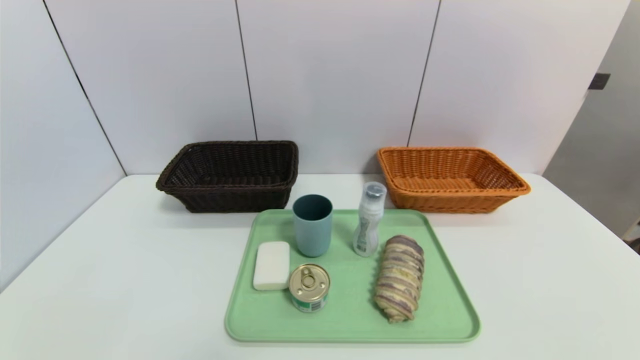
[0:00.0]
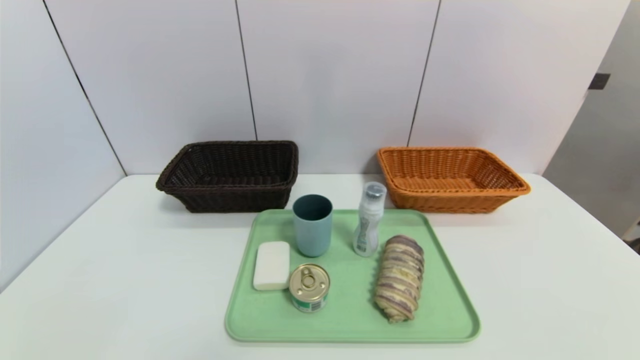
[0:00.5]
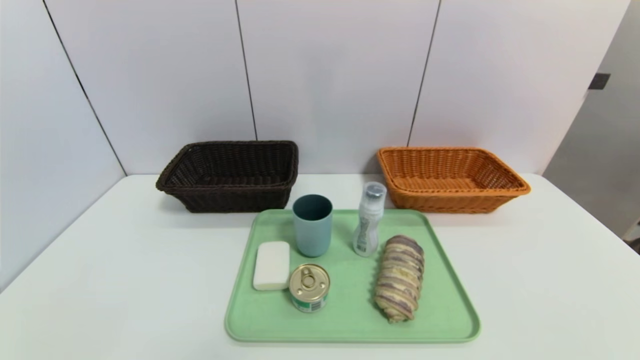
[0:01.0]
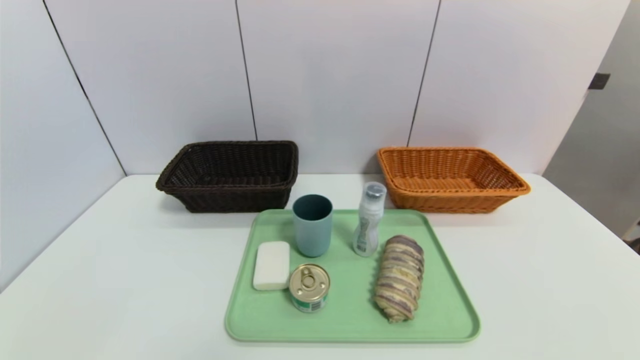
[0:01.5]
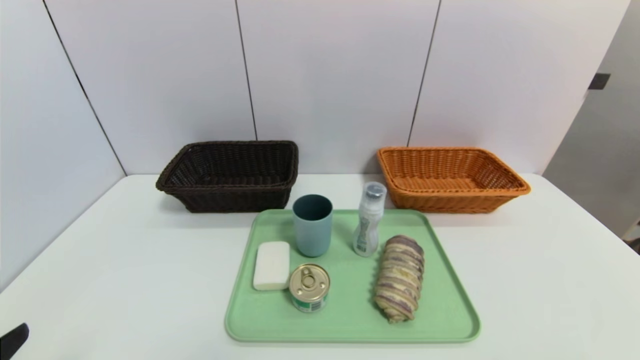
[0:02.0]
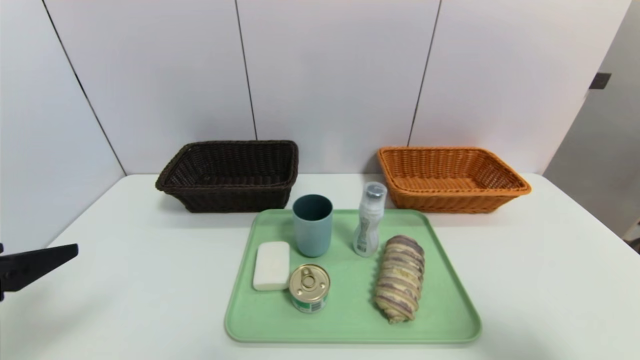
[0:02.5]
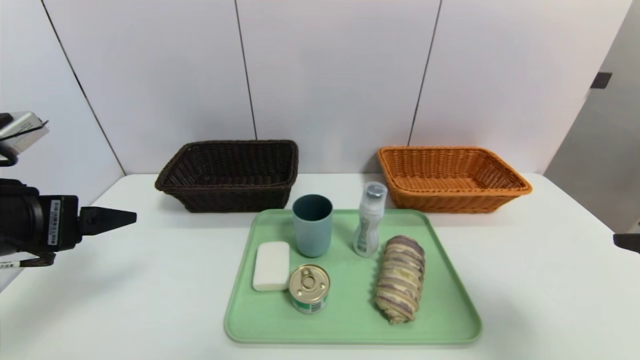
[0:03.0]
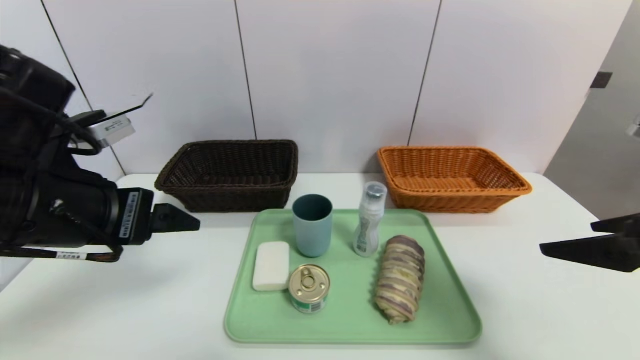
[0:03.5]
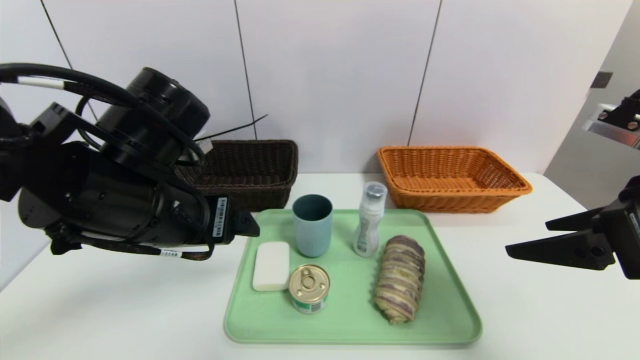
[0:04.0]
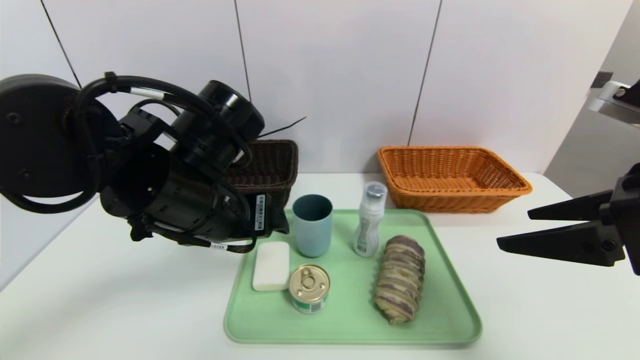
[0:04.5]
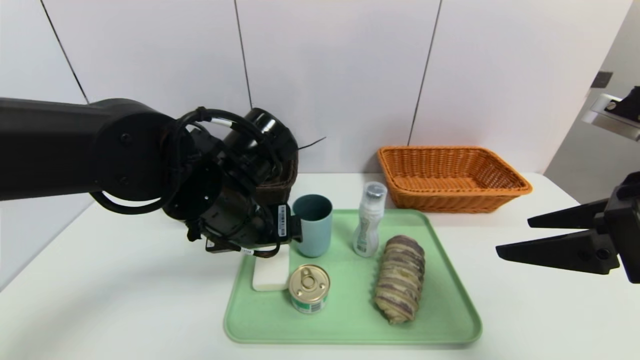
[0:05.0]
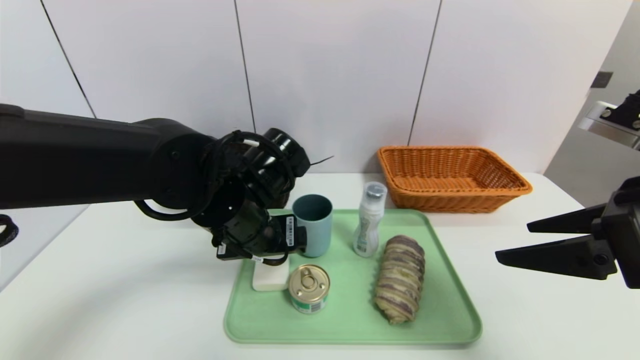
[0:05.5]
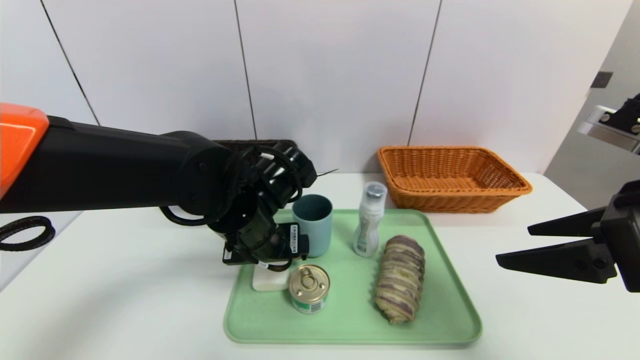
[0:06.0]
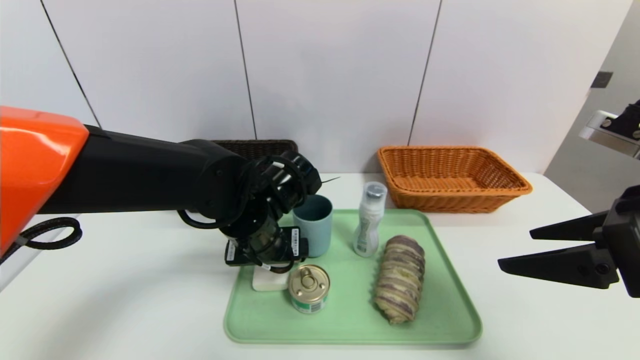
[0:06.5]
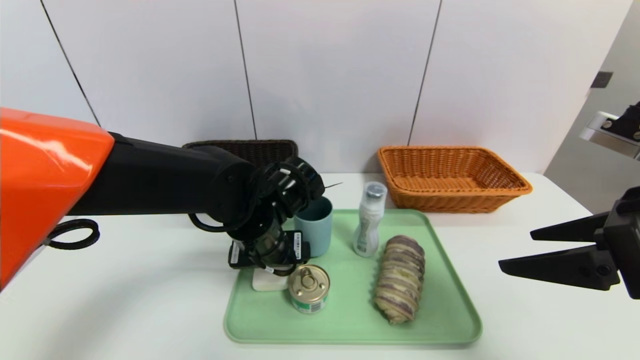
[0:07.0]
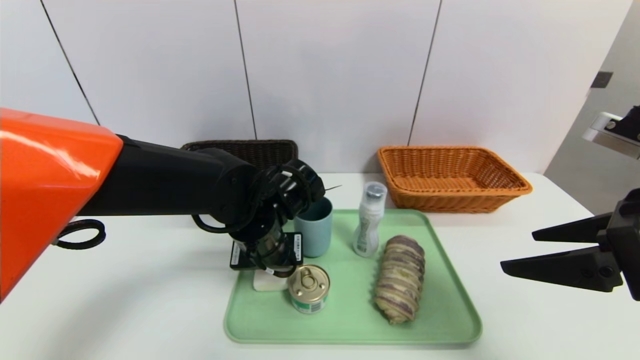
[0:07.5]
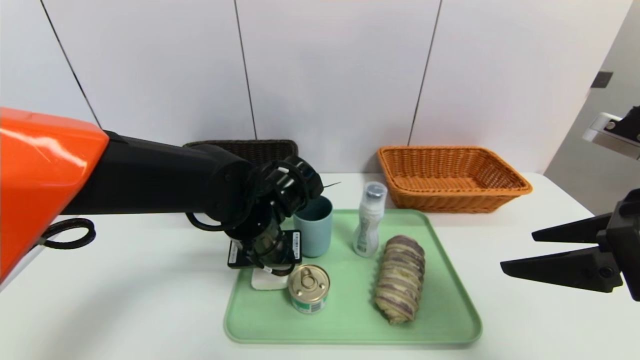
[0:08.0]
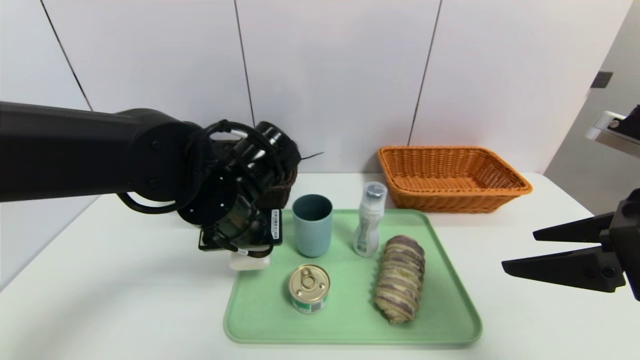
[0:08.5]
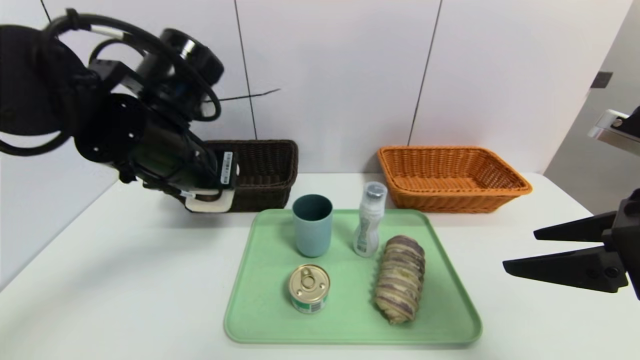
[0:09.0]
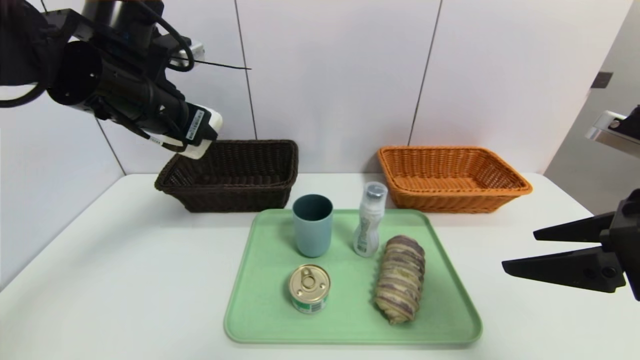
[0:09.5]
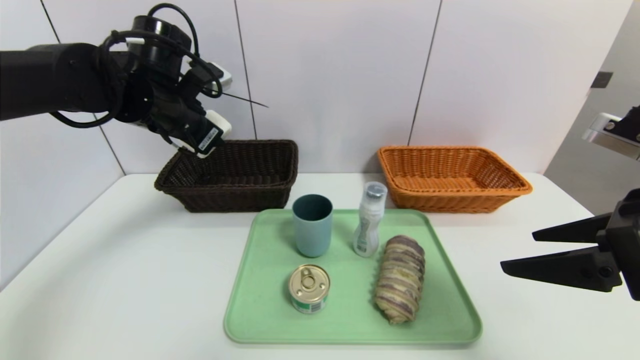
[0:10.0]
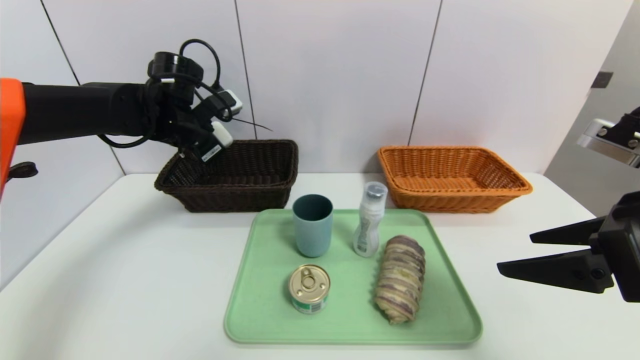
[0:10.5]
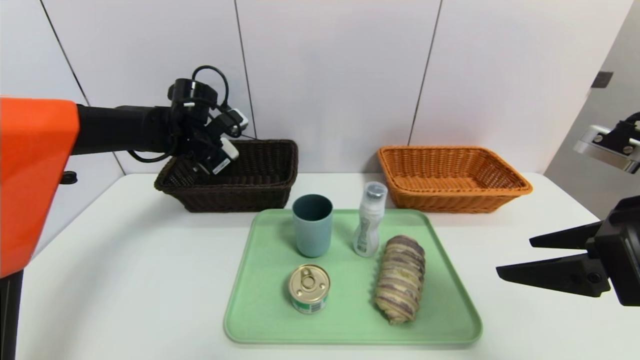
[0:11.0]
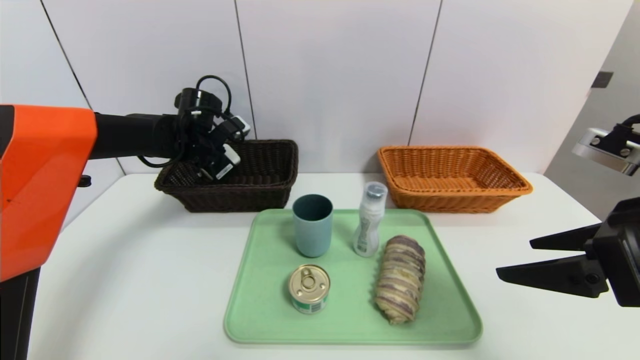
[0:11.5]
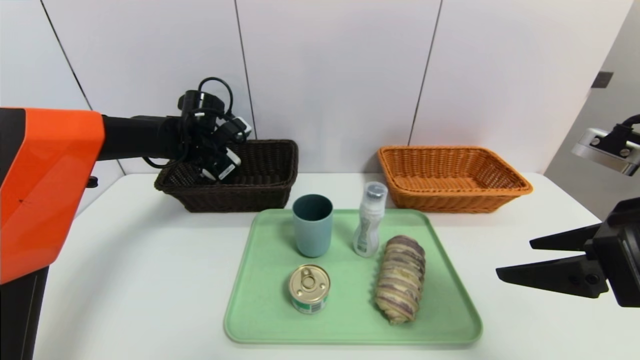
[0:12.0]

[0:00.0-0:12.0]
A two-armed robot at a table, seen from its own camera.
Task of the whole recording: place the food in the right basket with the right gripper, and place the non food items in the left basket with the left gripper.
0:02.0 to 0:04.0: The left gripper goes roughly 25 cm forward and to the right. Meanwhile the right gripper goes about 15 cm forward and upward.
0:04.0 to 0:06.0: The left gripper travels downward, to the right and forward by approximately 10 cm.
0:06.0 to 0:08.0: The left gripper closes.
0:08.0 to 0:10.0: The left gripper goes about 20 cm to the left, upward and forward.
0:10.0 to 0:12.0: The left gripper shifts approximately 15 cm downward and forward.

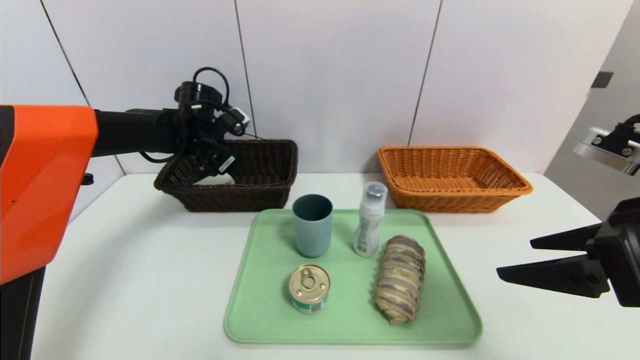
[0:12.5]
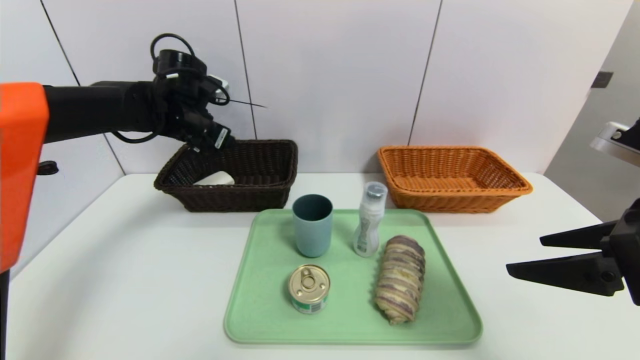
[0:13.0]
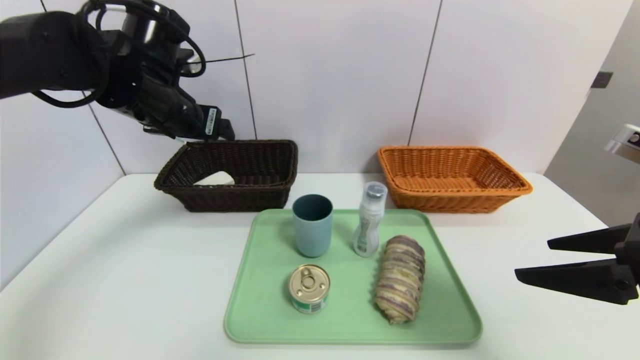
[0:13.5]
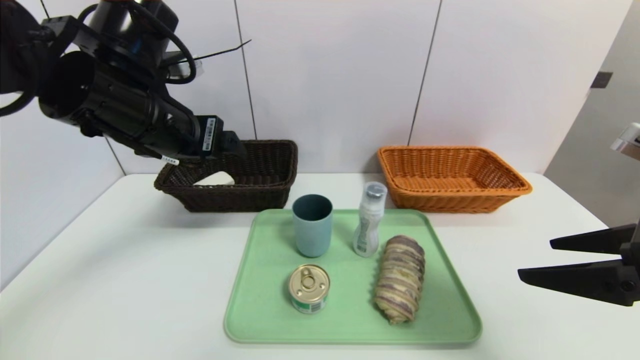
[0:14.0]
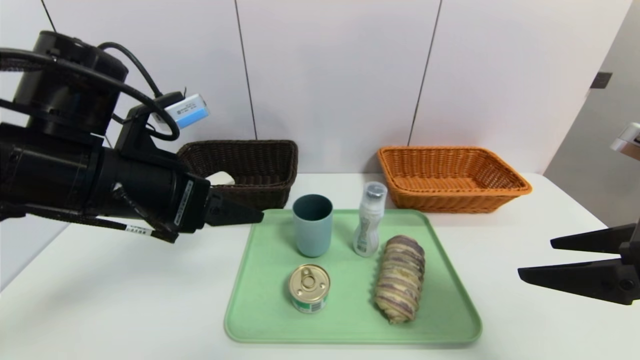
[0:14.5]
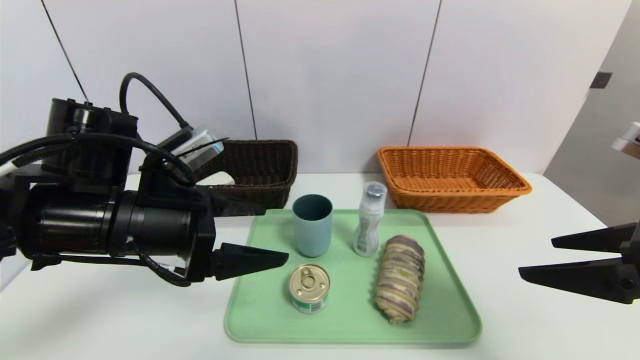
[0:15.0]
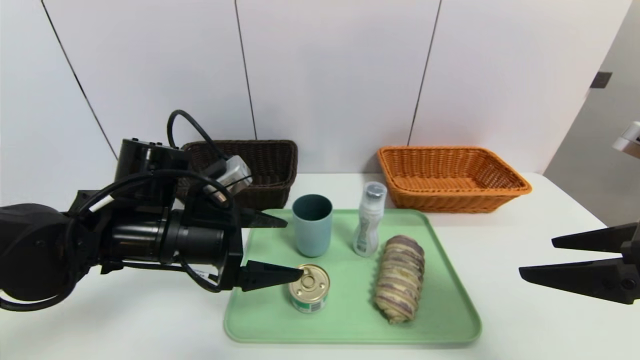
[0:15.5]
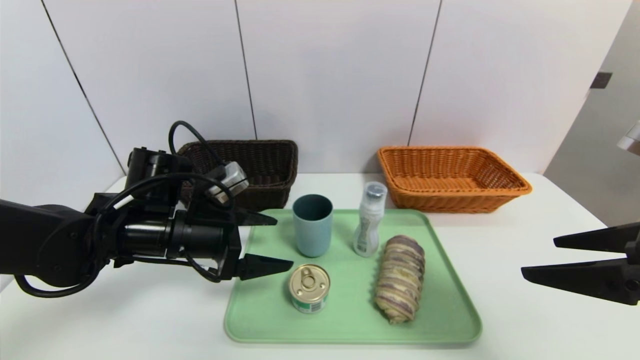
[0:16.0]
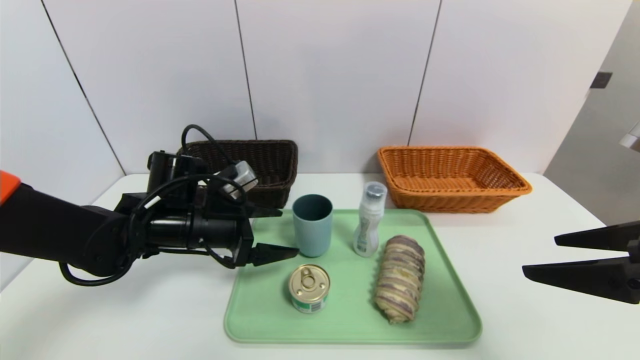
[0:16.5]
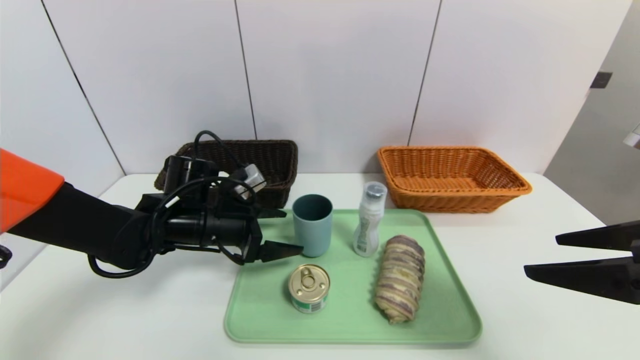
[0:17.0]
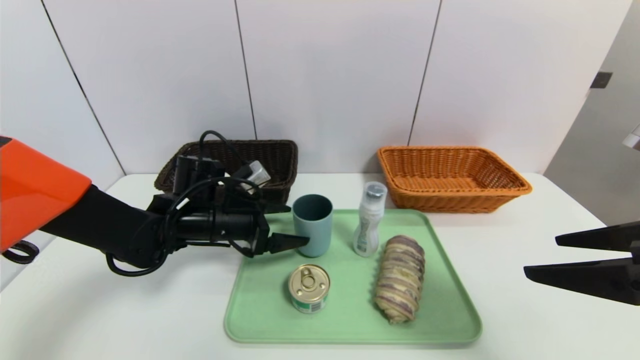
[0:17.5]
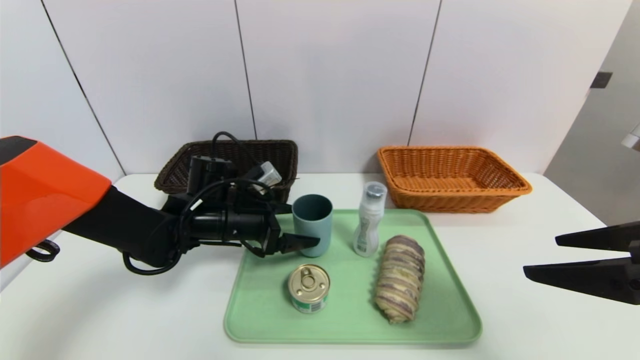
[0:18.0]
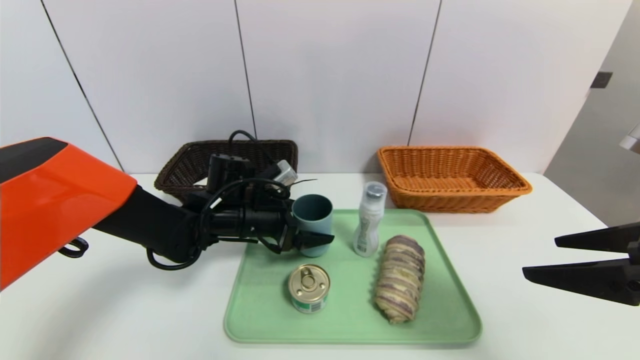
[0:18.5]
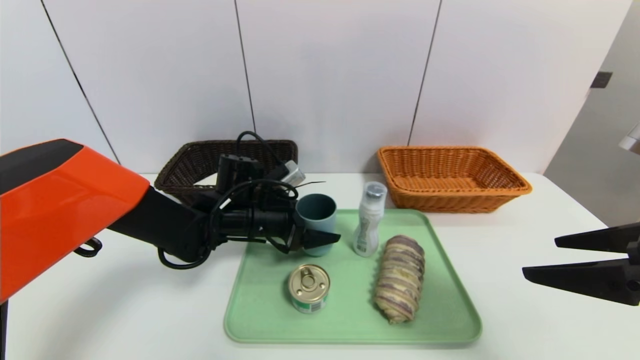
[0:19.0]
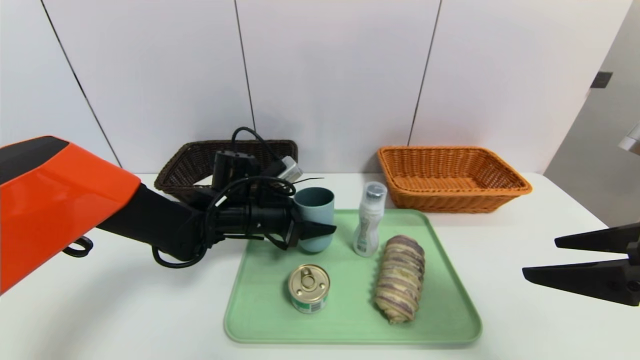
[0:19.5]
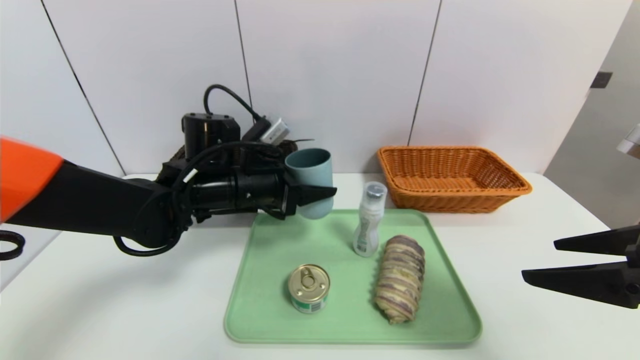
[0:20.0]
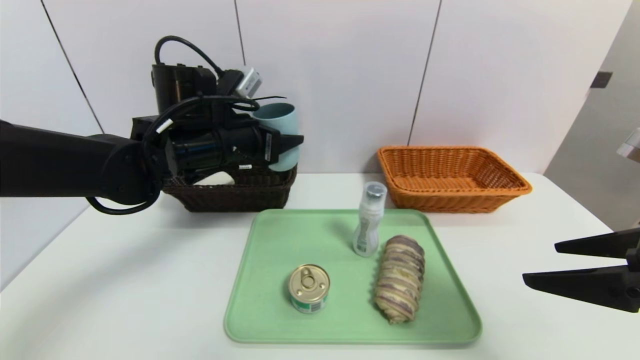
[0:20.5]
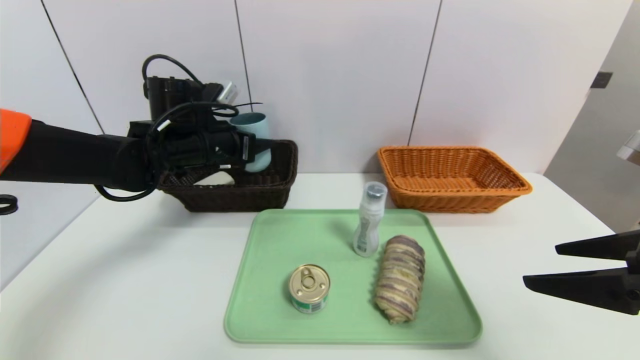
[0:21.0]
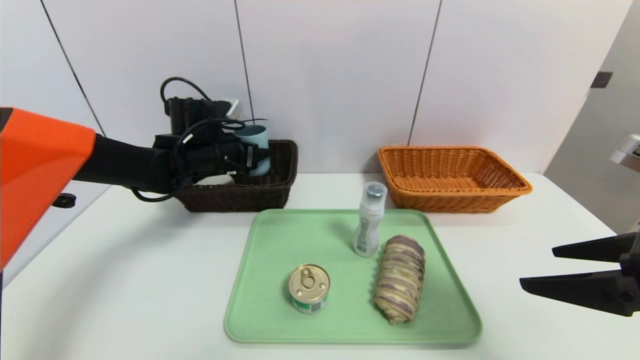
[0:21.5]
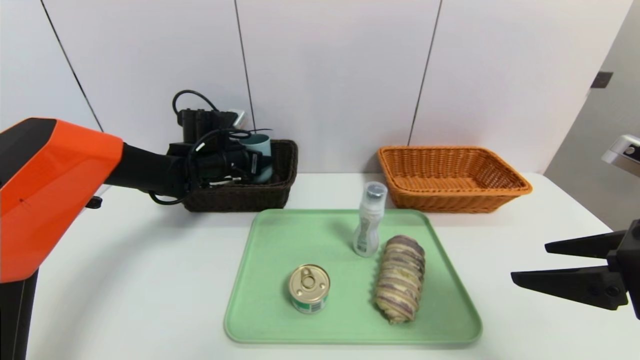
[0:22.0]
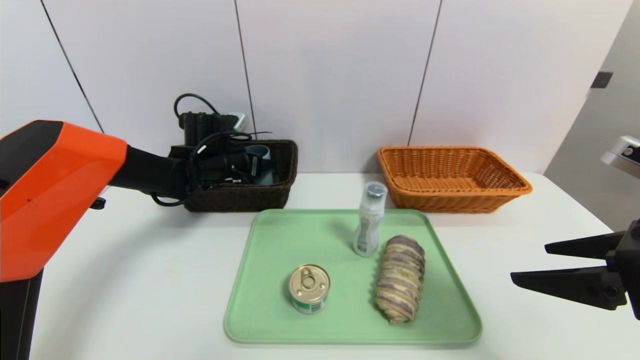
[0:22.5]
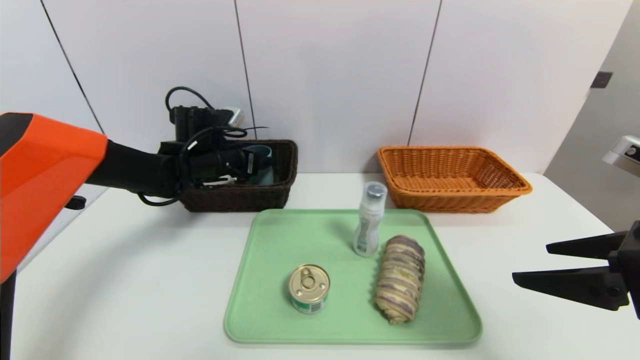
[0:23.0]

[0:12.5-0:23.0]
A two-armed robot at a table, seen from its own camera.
Task of the whole recording: place the food in the right basket with the right gripper, and place the non food items in the left basket with the left gripper.
0:12.5 to 0:14.5: The left gripper heads backward, covering roughly 25 cm.
0:14.5 to 0:16.5: The left gripper travels downward and forward by roughly 15 cm.
0:16.5 to 0:19.0: The left gripper is displaced to the right by approximately 5 cm.
0:19.0 to 0:21.0: The left gripper goes approximately 15 cm upward and to the left.
0:21.0 to 0:23.0: The left gripper shifts by roughly 5 cm, and opens.
